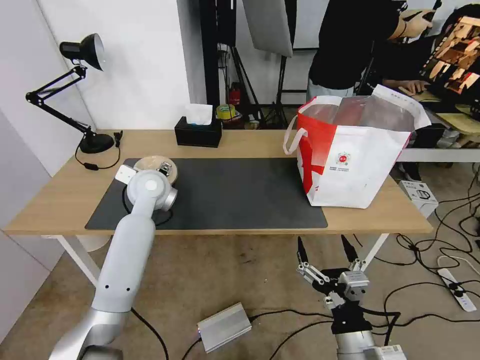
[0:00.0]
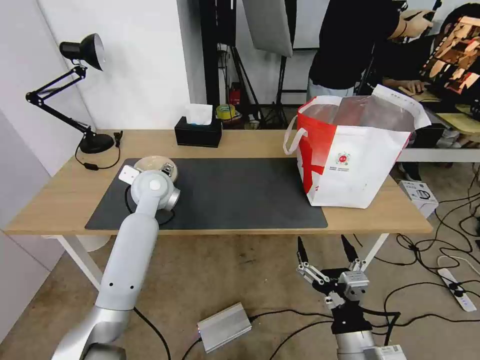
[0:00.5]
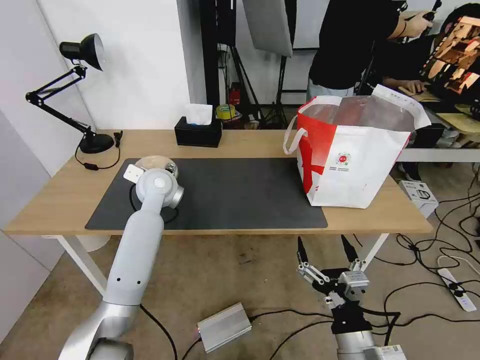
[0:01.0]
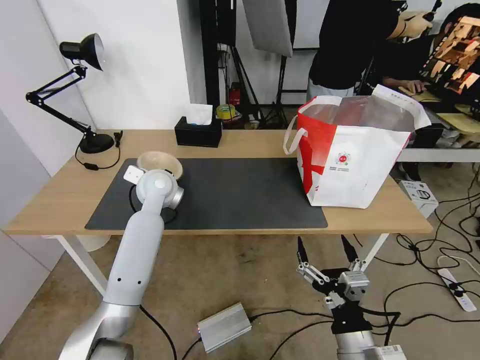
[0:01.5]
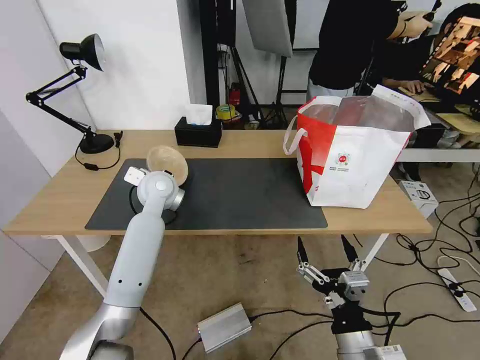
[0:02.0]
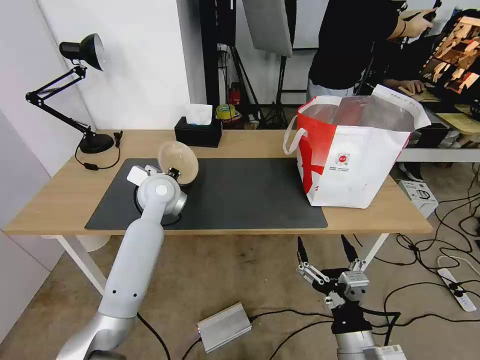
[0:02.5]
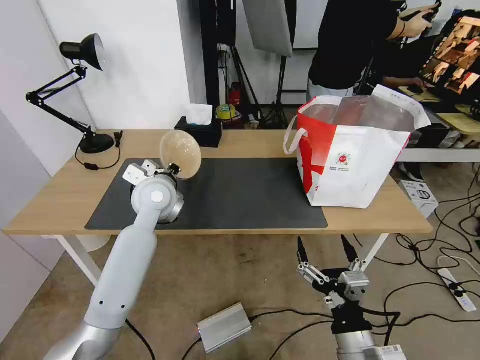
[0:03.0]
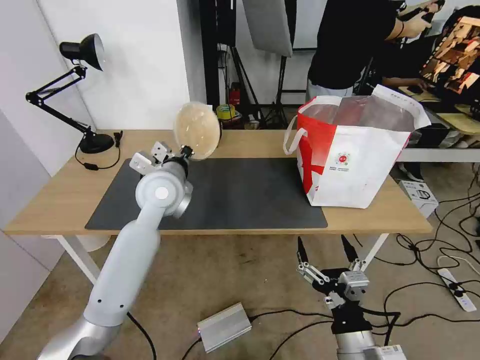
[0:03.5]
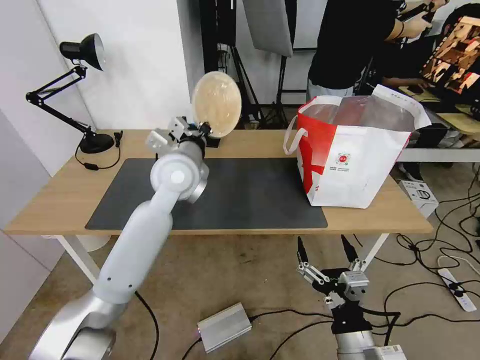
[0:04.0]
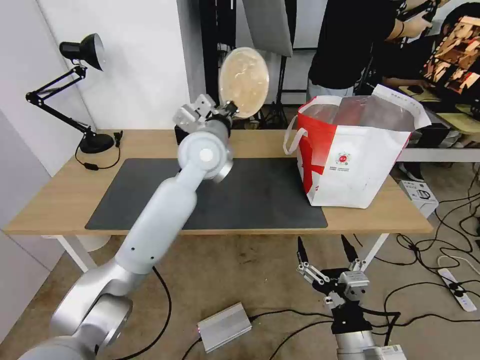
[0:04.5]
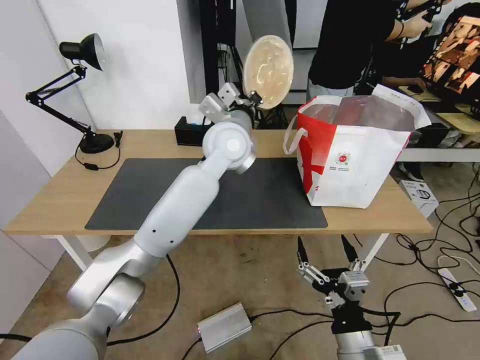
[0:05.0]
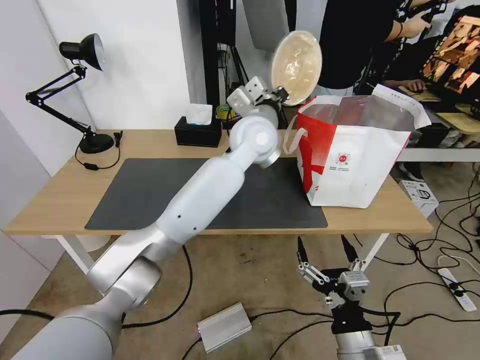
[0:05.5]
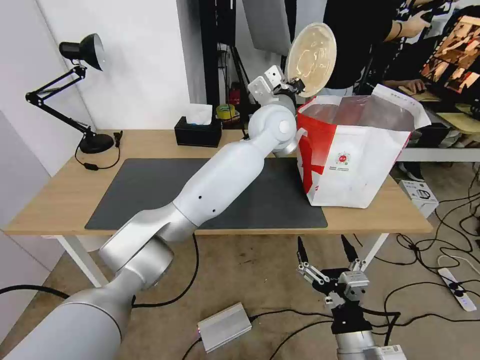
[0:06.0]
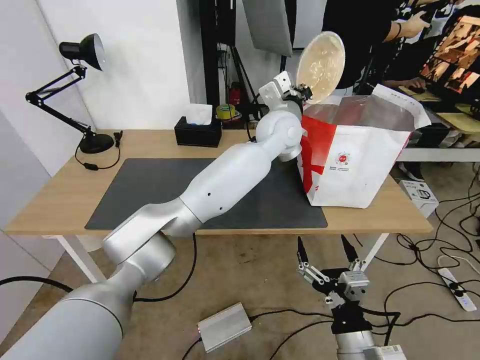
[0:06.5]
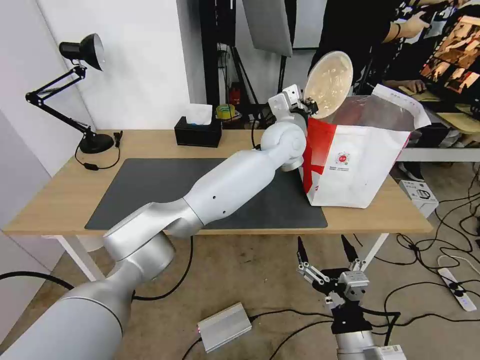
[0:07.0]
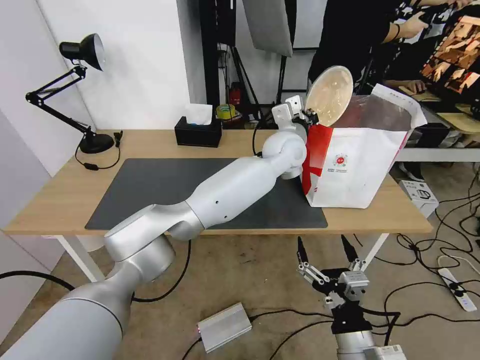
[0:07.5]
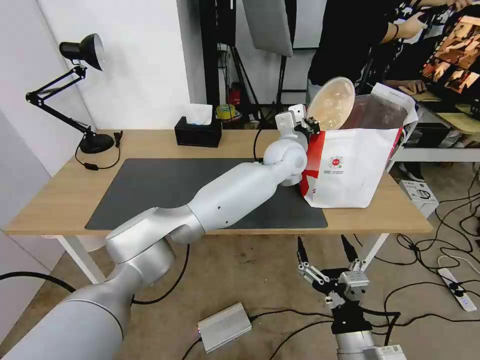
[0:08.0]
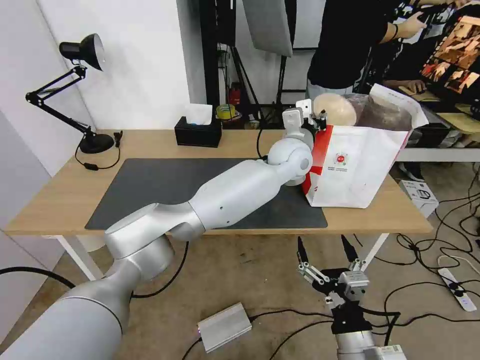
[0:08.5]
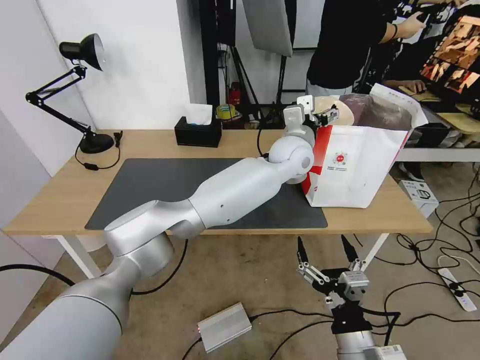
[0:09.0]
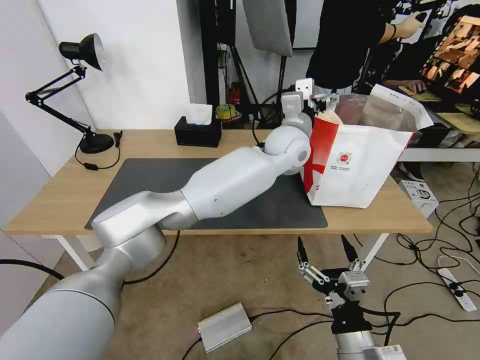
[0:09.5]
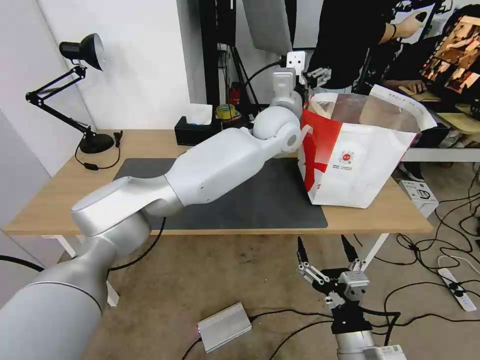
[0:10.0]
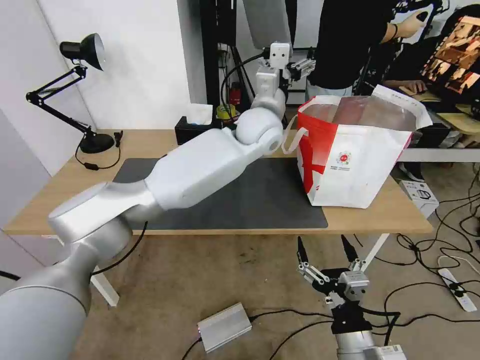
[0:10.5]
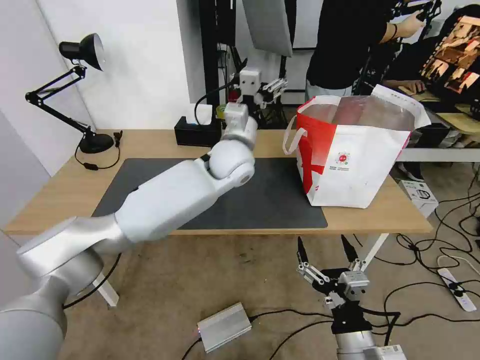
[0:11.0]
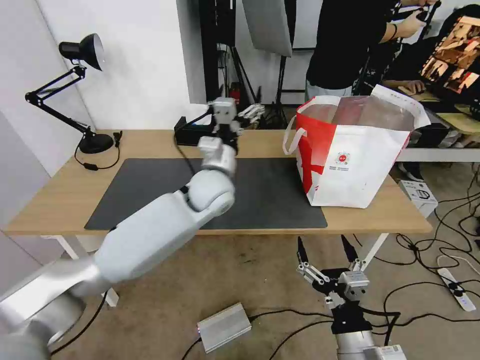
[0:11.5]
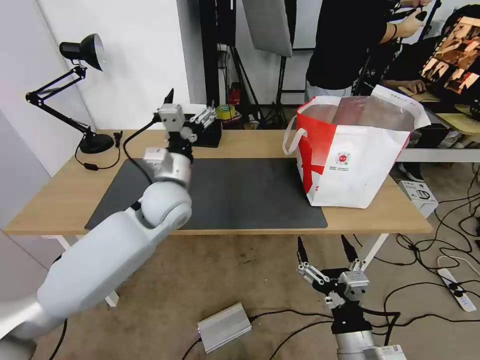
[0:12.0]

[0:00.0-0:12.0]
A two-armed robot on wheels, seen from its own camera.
Task of the whole recording: Pick up the trash from the table and place it into the takeout bag.
0:00.0 to 0:02.0: The left gripper closes up.
0:02.0 to 0:04.0: The left gripper moves upward and to the right, about 10 cm.
0:04.0 to 0:06.0: The left gripper goes roughly 20 cm to the right and forward.
0:06.0 to 0:08.0: The left gripper heads downward, covering approximately 10 cm.
0:08.0 to 0:10.0: The left gripper moves upward, approximately 5 cm, and opens up.
0:10.0 to 0:12.0: The left gripper is displaced to the left, backward and downward by roughly 30 cm.

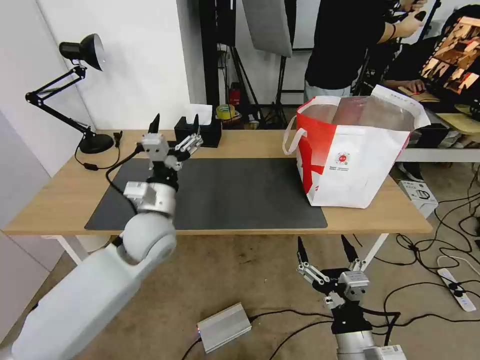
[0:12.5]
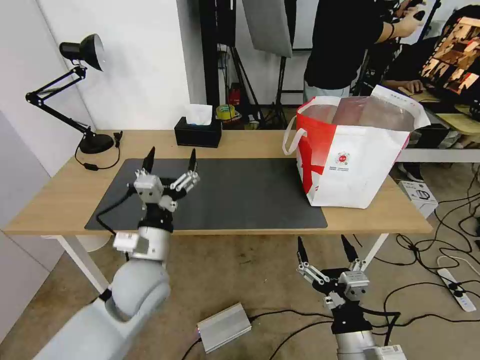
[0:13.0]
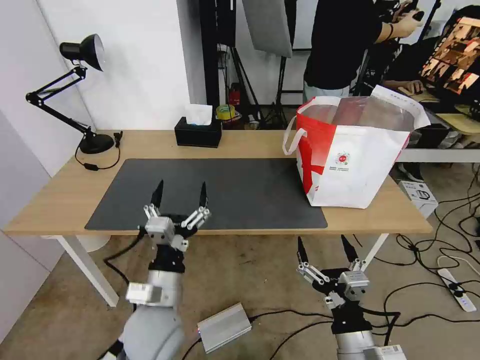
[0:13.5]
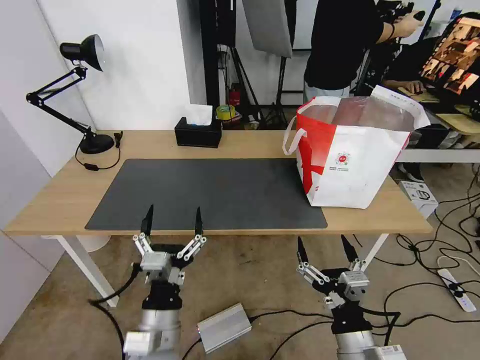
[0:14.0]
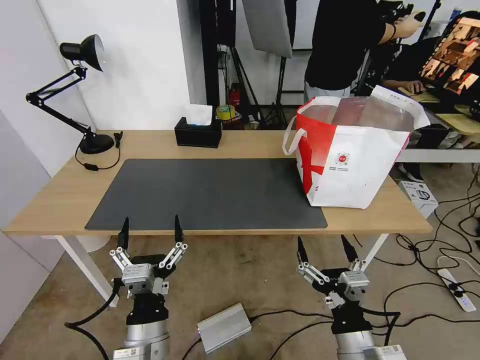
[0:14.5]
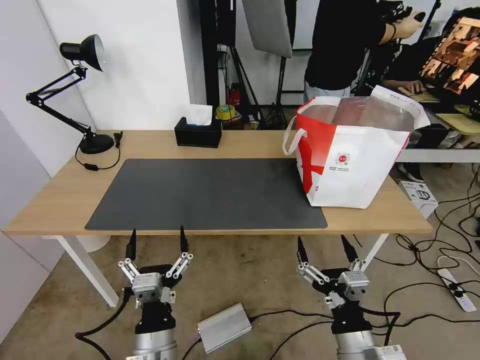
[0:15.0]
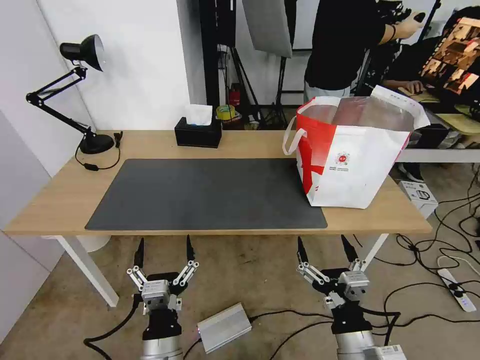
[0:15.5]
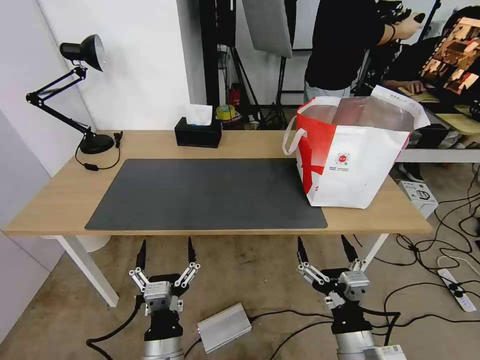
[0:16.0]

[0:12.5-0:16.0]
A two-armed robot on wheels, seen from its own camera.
Task of the whole recording: Pick up the trash from the table and place it into the takeout bag.
0:12.5 to 0:14.5: The left gripper travels backward and downward by roughly 25 cm.
0:14.5 to 0:16.0: The left gripper shifts by some 5 cm.
